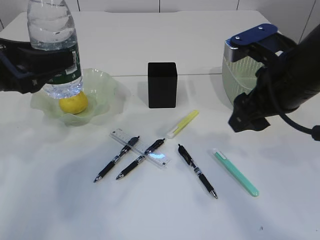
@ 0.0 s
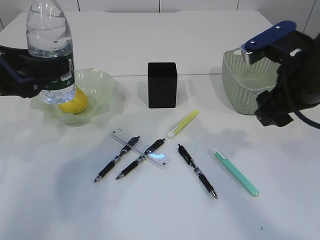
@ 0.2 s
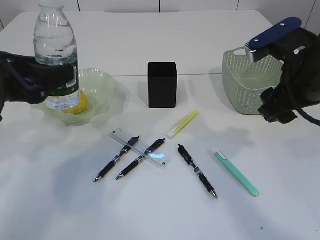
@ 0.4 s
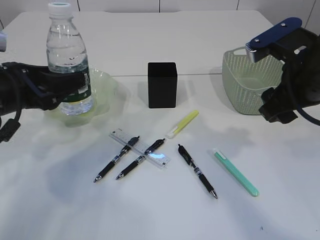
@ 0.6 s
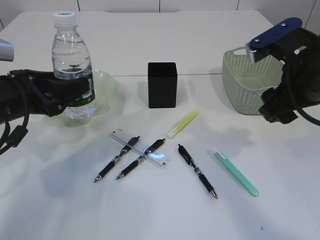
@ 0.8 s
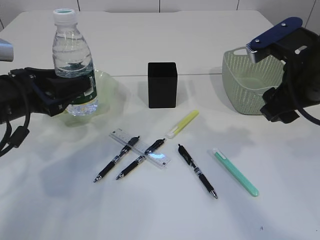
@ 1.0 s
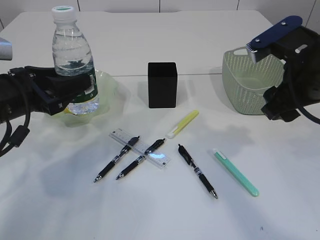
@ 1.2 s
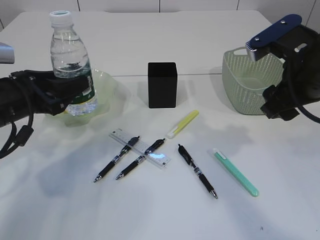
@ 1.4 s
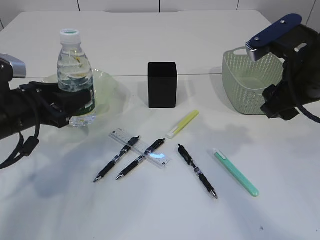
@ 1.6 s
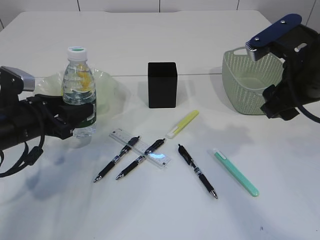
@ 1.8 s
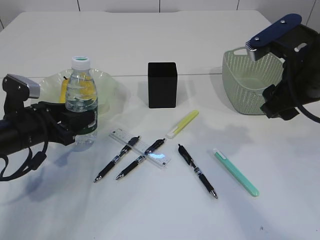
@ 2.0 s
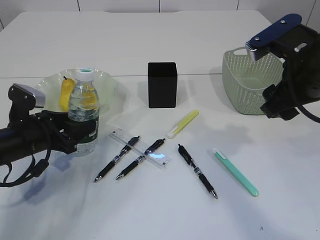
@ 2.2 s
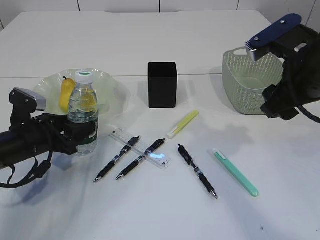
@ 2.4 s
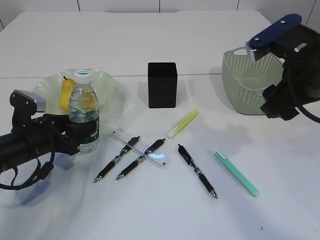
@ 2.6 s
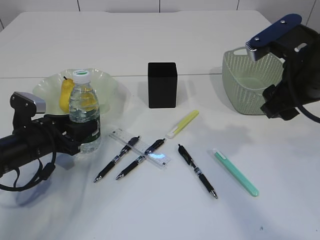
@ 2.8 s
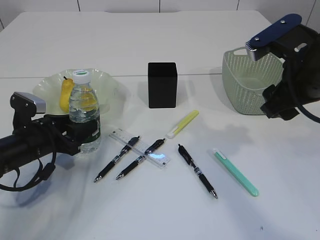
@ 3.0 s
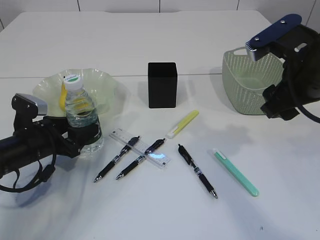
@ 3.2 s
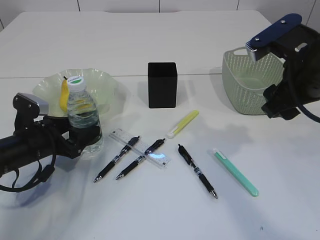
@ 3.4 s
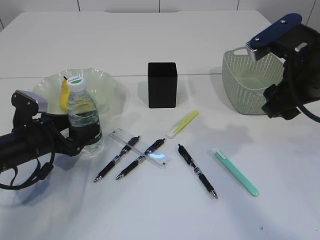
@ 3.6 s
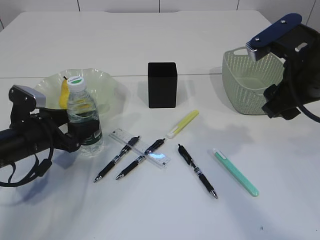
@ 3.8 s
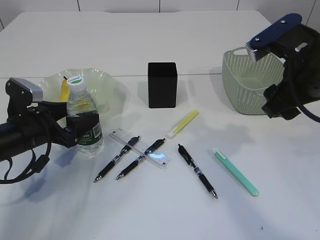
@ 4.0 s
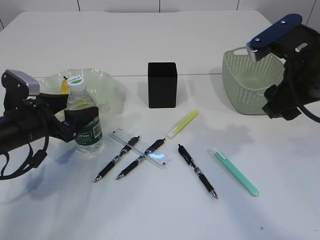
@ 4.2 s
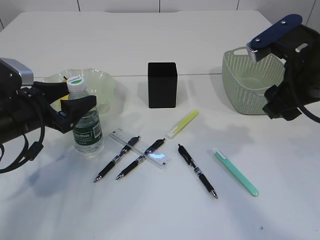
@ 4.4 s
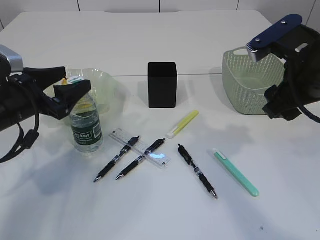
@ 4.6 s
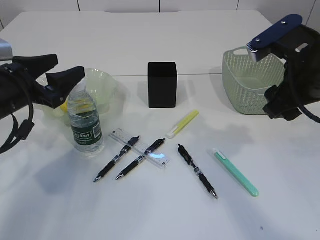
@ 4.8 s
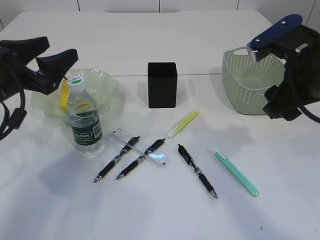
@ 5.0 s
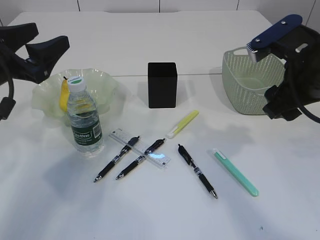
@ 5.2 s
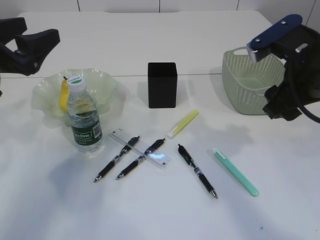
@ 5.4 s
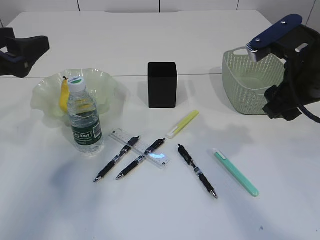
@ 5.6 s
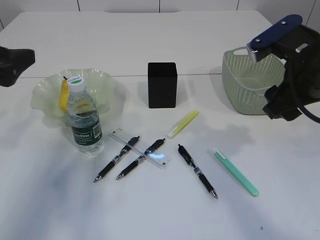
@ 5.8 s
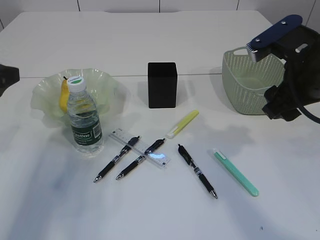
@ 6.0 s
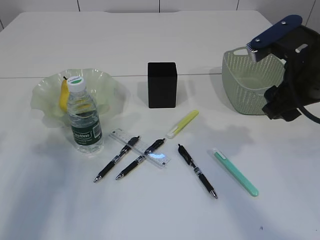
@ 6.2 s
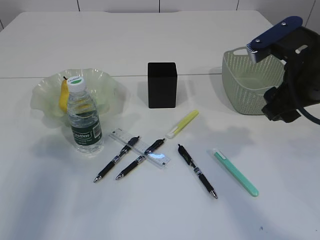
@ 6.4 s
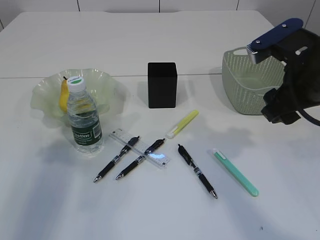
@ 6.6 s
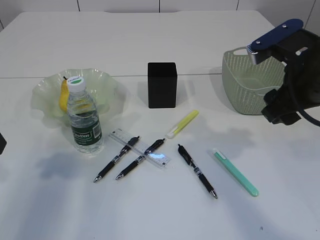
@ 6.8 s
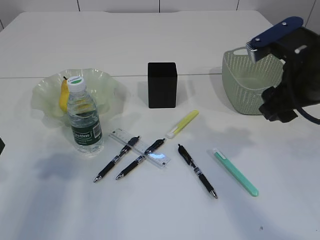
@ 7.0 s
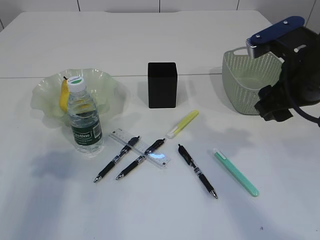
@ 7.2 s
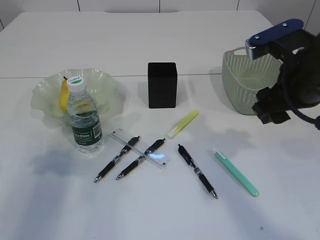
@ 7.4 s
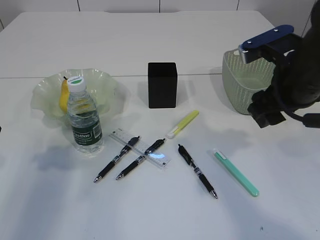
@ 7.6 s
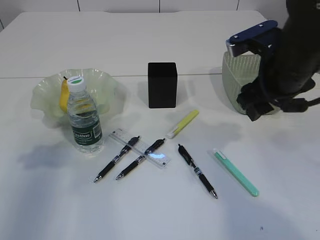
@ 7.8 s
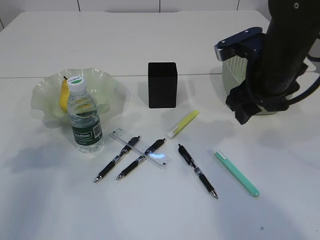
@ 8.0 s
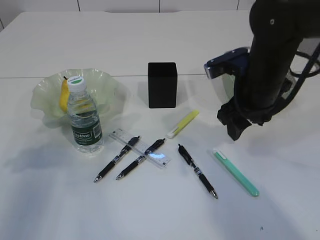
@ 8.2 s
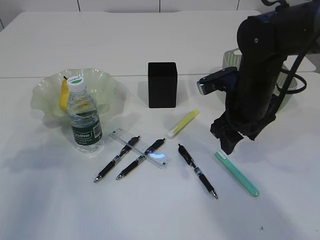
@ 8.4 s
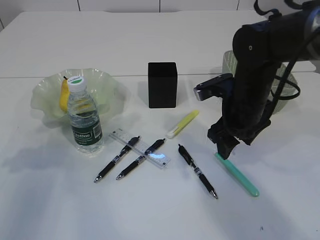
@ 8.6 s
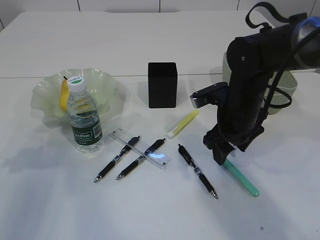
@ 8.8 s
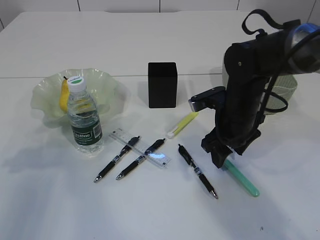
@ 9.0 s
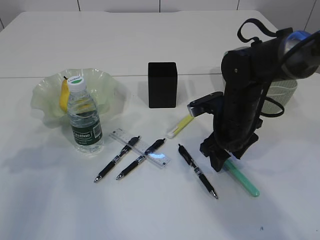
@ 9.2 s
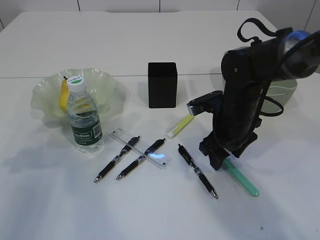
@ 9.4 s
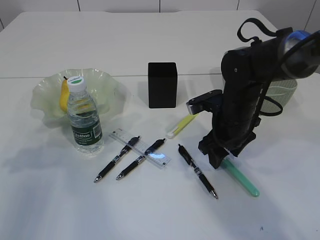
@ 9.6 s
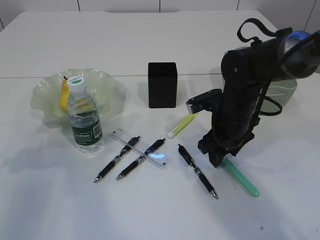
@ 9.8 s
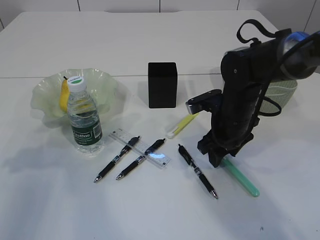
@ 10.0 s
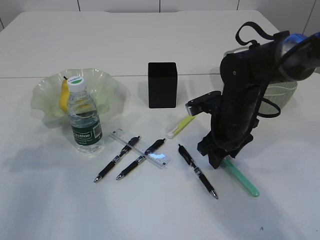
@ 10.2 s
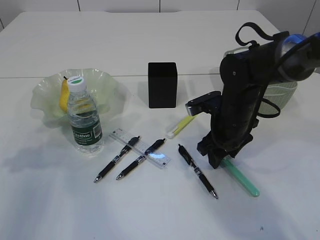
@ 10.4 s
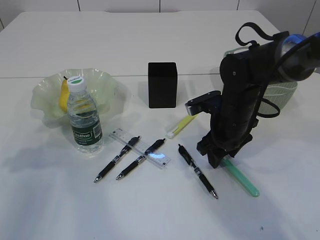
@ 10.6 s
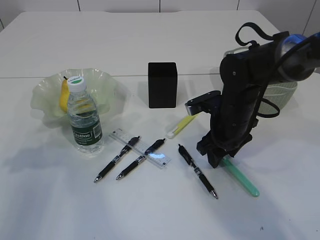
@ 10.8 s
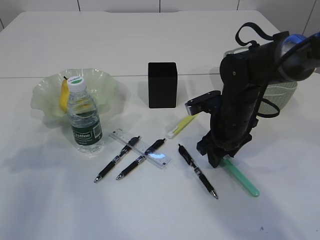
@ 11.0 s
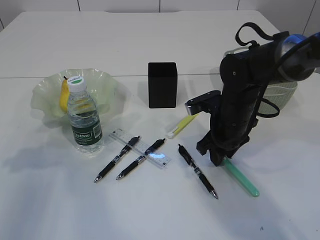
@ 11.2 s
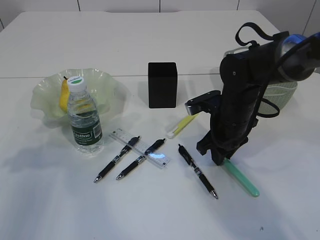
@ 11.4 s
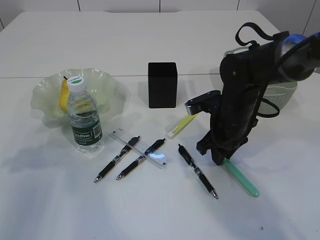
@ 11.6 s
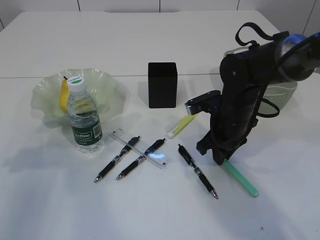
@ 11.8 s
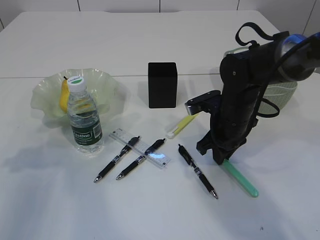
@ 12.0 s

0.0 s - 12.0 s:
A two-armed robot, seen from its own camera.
Step, 0.0 s - 5.0 s: Place the bottle.
0.0 s - 1.6 s: The left gripper travels downward by roughly 10 cm.
1.6 s - 3.0 s: The left gripper goes roughly 10 cm downward.
3.0 s - 4.4 s: The left gripper shifts roughly 5 cm upward, and opens up.
4.4 s - 6.0 s: The left gripper travels upward and backward by roughly 15 cm.
7.6 s - 9.0 s: The right gripper heads downward and forward, covering approximately 15 cm.
9.0 s - 10.4 s: The grippers stay close to where they were, moving slightly.
10.4 s - 12.0 s: The right gripper closes up.

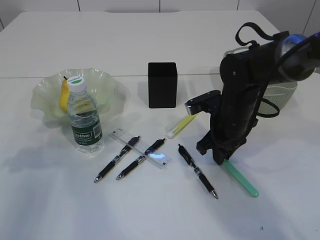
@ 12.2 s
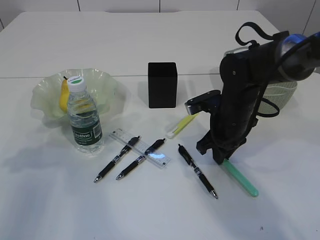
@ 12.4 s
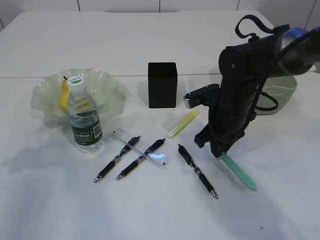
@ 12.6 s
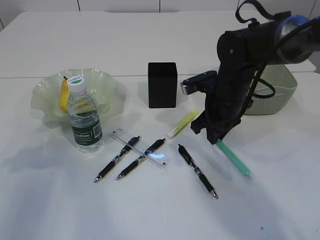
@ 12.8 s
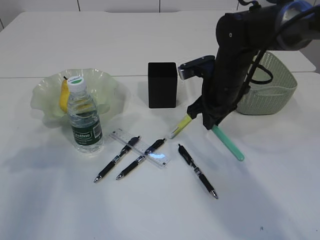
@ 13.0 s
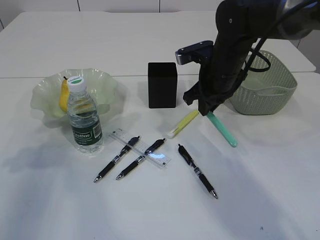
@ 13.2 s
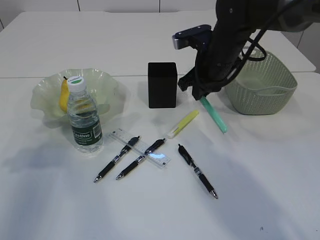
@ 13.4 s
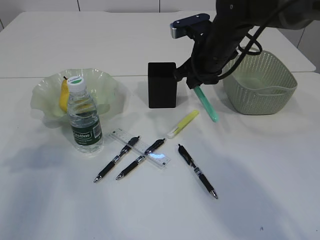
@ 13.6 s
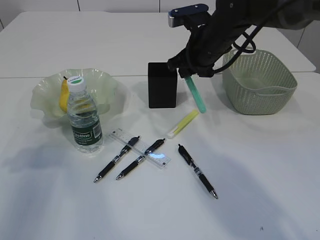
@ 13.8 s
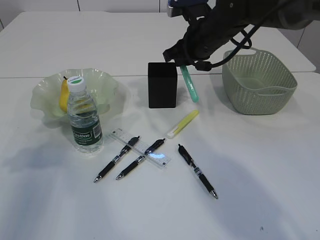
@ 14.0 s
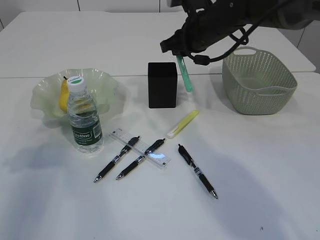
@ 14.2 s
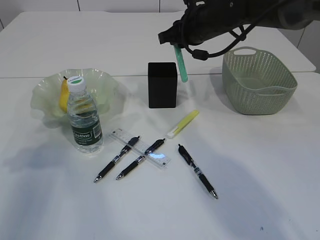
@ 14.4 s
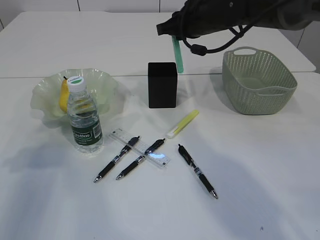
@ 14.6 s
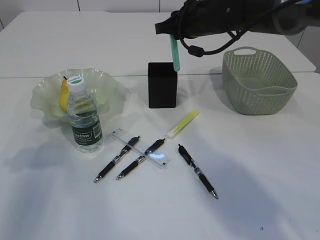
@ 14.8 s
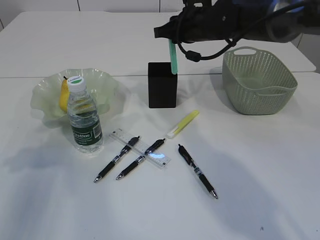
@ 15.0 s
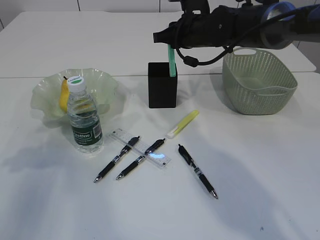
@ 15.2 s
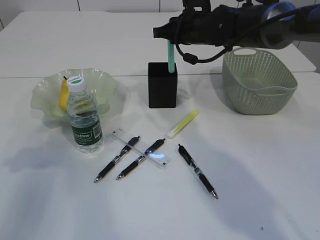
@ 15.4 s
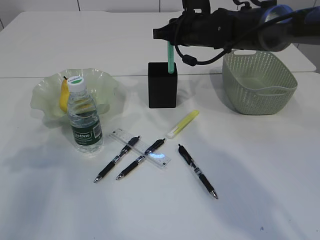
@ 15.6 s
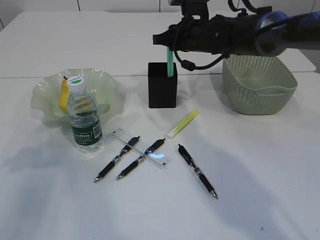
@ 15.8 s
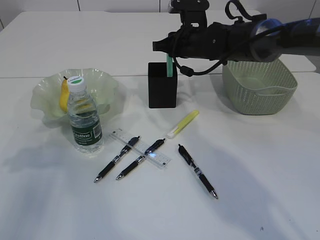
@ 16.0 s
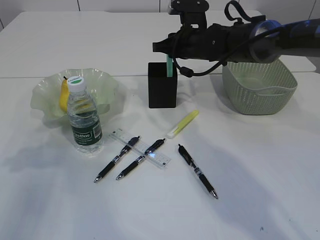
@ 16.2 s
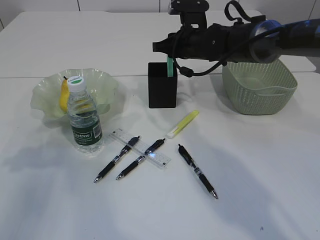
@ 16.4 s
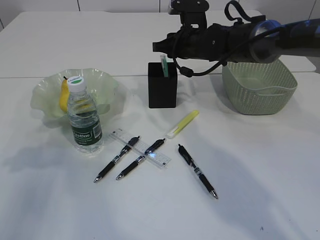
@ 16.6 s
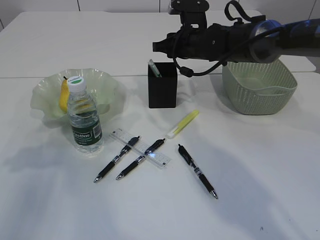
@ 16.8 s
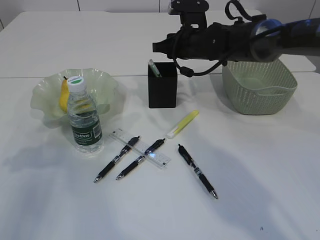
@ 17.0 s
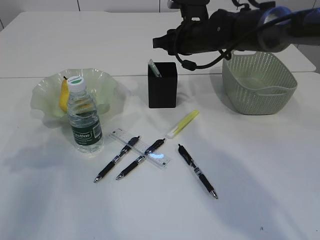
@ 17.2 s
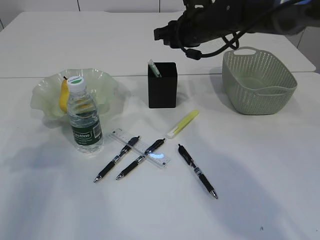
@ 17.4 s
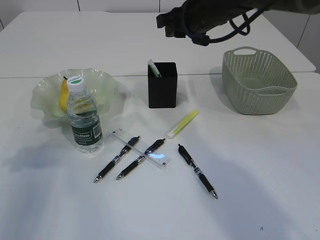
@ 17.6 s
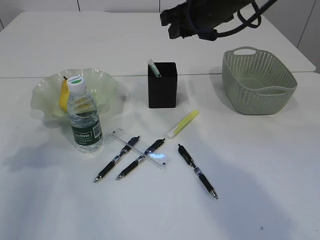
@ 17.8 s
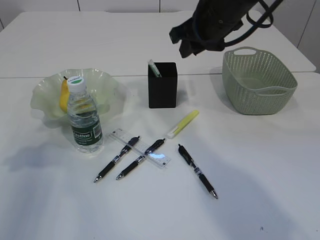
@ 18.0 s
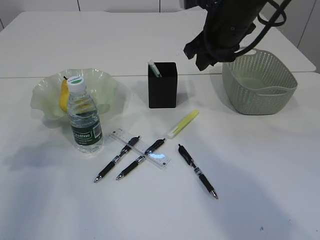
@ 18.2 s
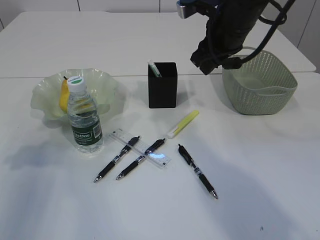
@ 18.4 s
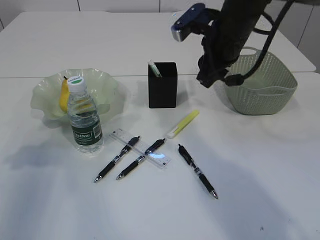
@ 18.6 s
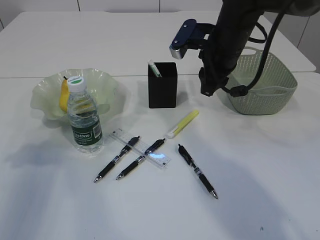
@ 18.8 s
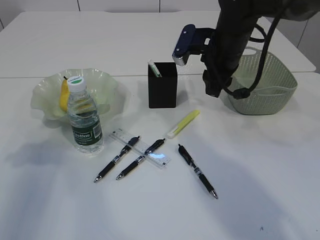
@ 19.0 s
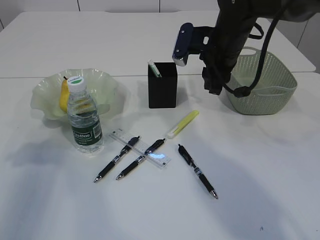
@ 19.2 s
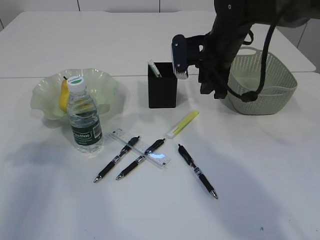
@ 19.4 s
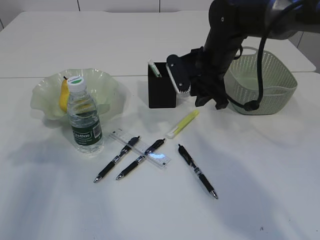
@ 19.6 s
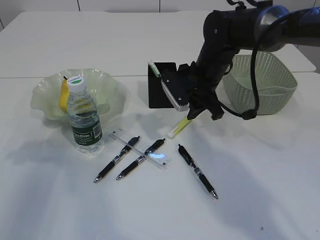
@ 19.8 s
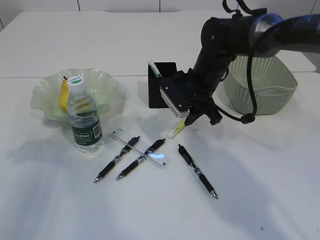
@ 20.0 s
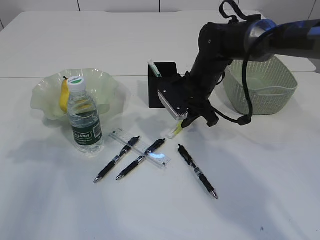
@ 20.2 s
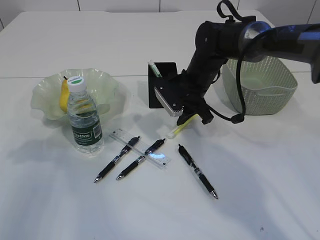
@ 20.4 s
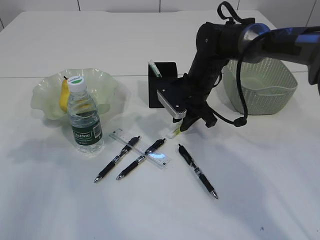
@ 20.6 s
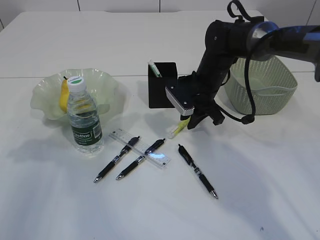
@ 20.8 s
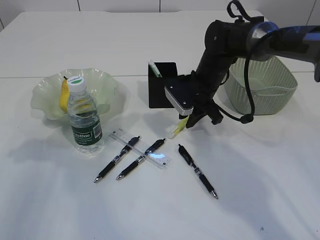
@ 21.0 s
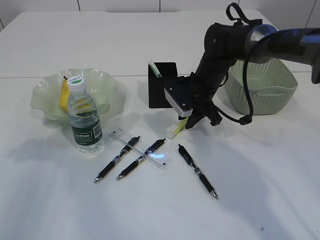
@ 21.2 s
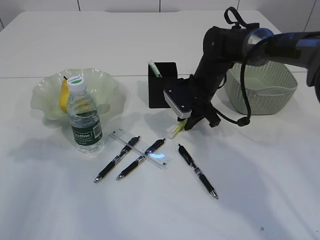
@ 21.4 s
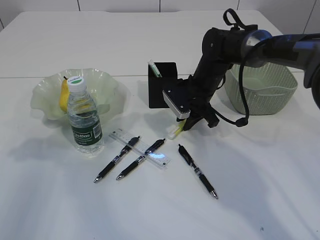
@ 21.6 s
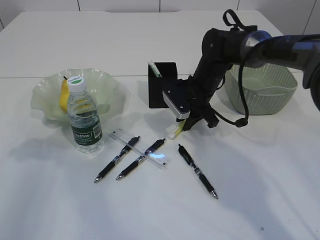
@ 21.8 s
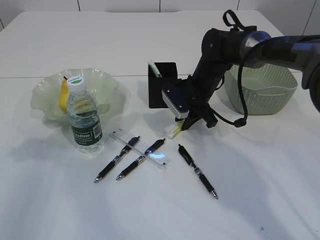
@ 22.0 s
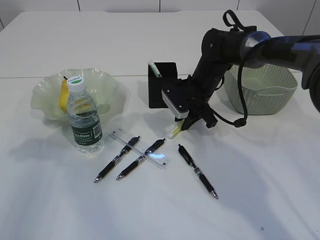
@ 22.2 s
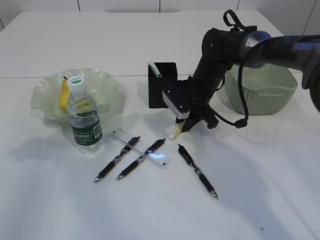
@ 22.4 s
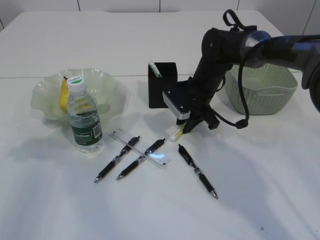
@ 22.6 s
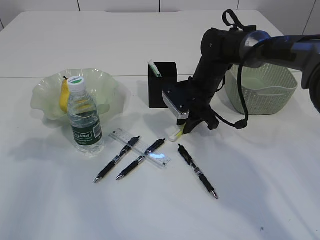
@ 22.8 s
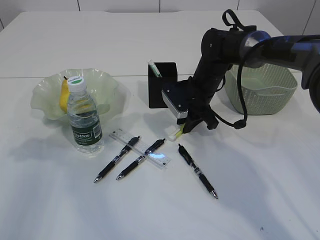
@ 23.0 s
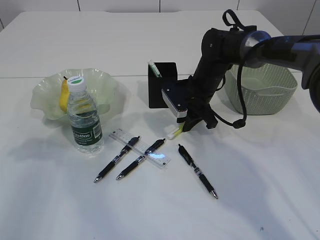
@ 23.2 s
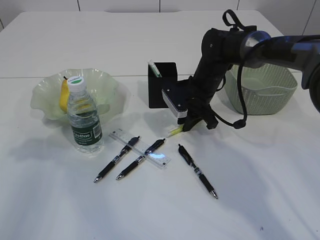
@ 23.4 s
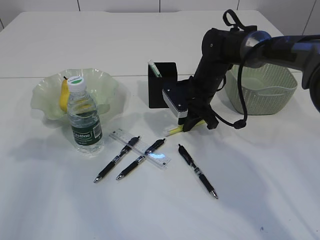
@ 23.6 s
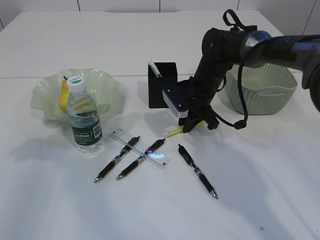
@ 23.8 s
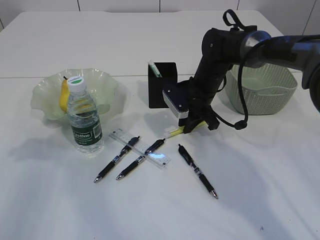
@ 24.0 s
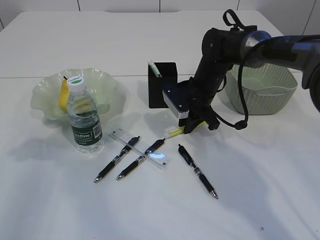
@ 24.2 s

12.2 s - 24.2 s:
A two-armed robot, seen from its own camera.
Step, 13.2 s - 17.8 s: Place the blue knife into the pen holder.
12.2 s - 13.8 s: The right gripper is displaced upward and forward by approximately 15 cm.
15.2 s - 16.6 s: The grippers stay close to where they were, moving slightly.
16.6 s - 18.2 s: The right gripper heads upward and backward, covering about 10 cm.
18.2 s - 19.8 s: The right gripper travels downward by about 10 cm.
19.8 s - 22.6 s: The grippers make only small movements.
22.6 s - 24.2 s: Both grippers stay about where they are.
